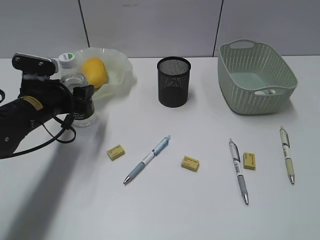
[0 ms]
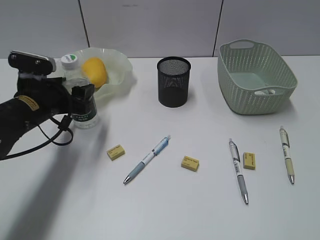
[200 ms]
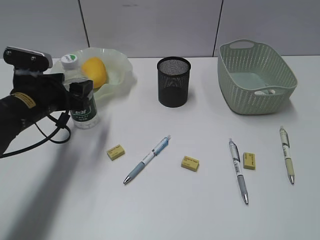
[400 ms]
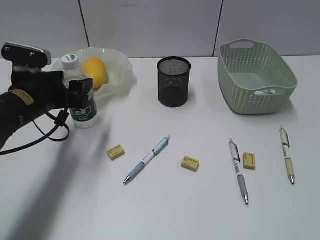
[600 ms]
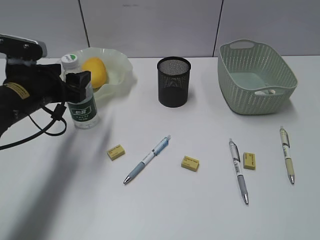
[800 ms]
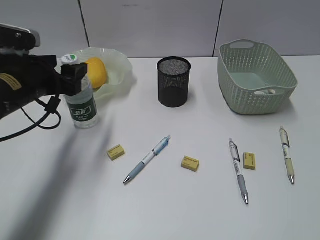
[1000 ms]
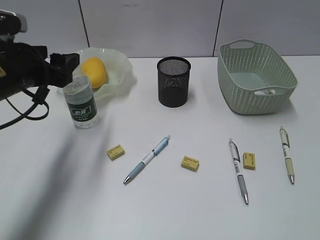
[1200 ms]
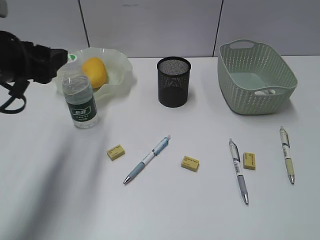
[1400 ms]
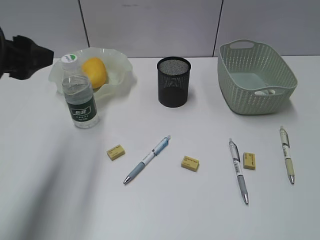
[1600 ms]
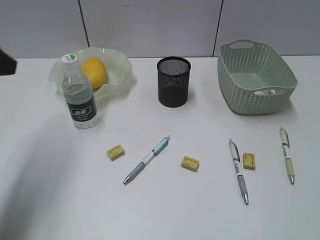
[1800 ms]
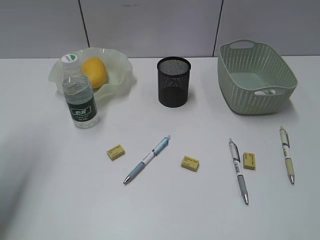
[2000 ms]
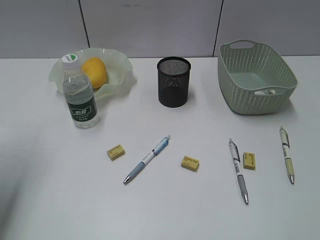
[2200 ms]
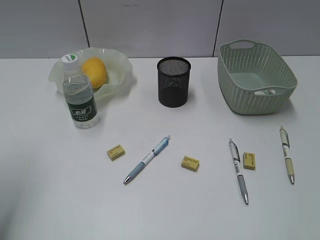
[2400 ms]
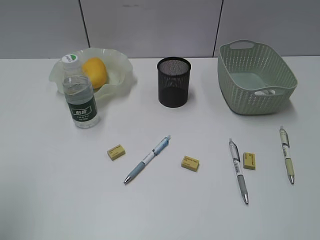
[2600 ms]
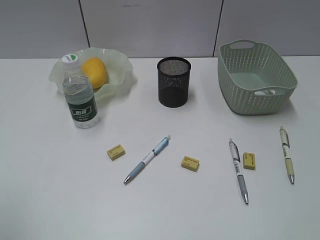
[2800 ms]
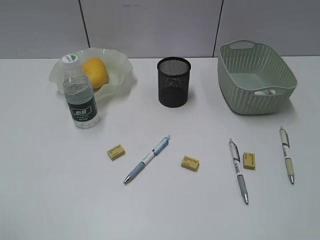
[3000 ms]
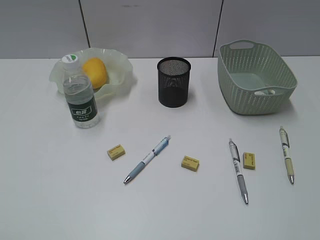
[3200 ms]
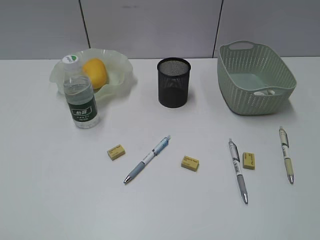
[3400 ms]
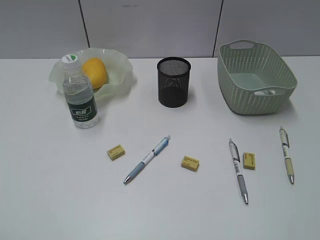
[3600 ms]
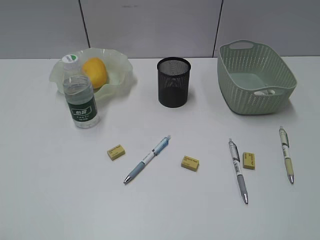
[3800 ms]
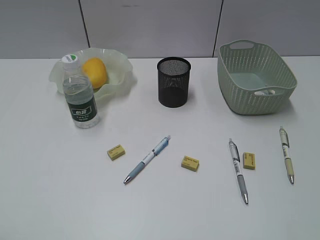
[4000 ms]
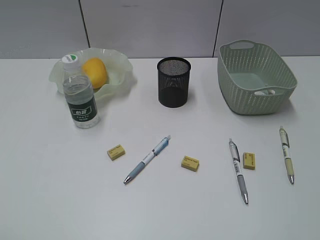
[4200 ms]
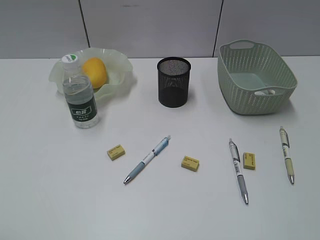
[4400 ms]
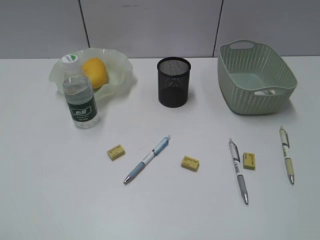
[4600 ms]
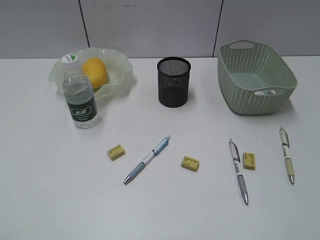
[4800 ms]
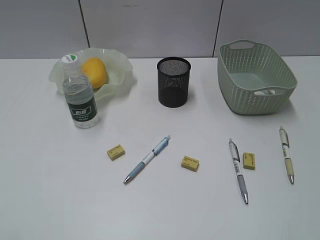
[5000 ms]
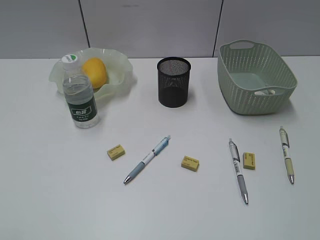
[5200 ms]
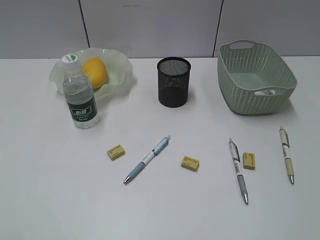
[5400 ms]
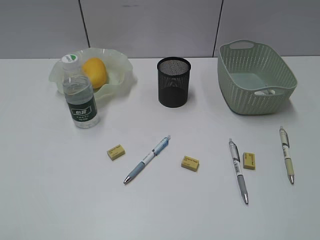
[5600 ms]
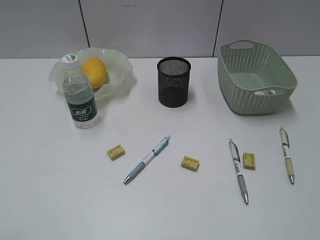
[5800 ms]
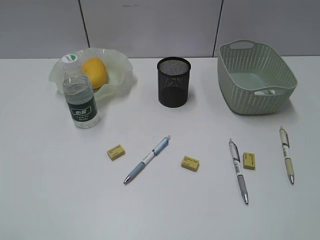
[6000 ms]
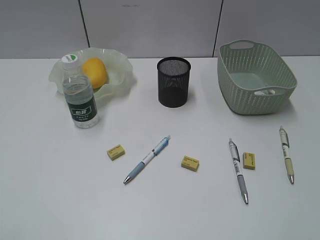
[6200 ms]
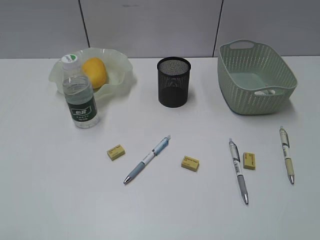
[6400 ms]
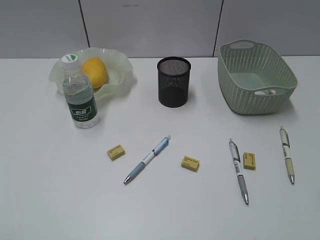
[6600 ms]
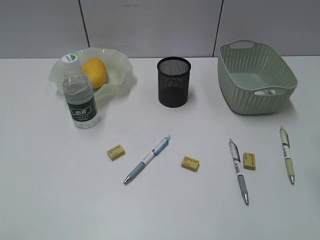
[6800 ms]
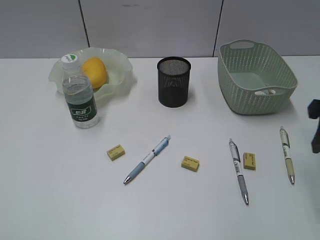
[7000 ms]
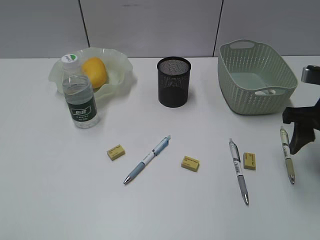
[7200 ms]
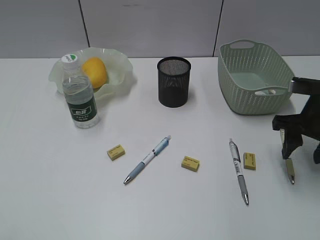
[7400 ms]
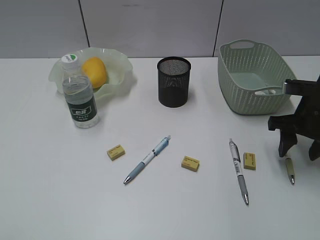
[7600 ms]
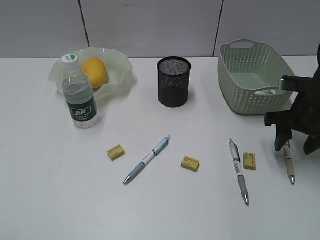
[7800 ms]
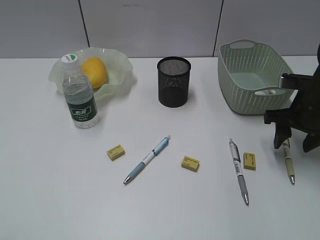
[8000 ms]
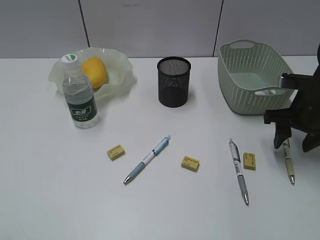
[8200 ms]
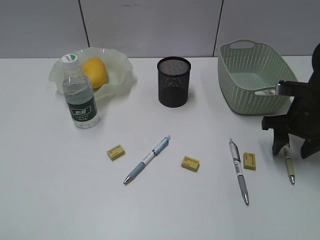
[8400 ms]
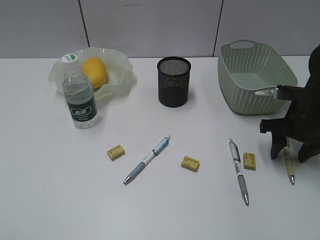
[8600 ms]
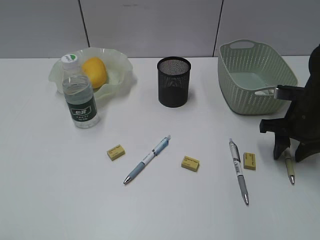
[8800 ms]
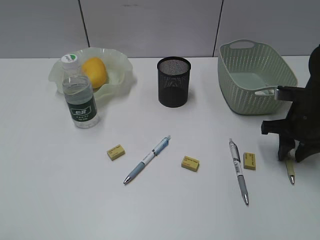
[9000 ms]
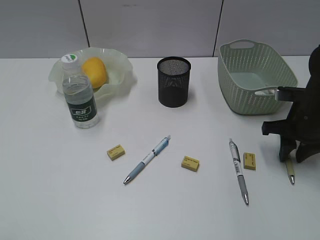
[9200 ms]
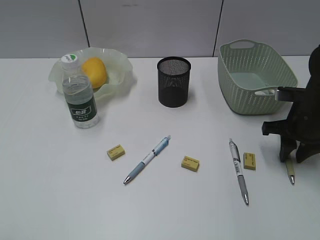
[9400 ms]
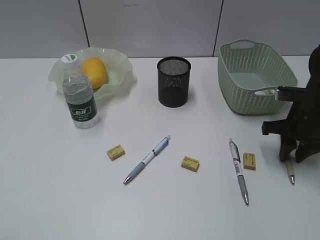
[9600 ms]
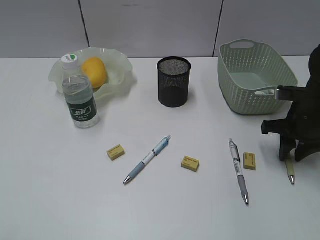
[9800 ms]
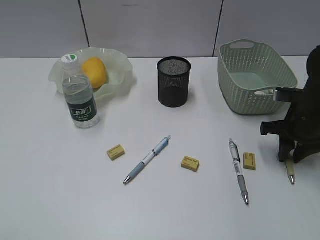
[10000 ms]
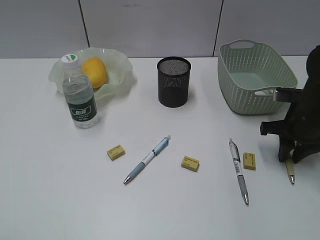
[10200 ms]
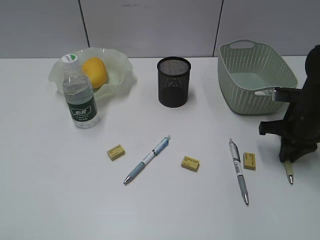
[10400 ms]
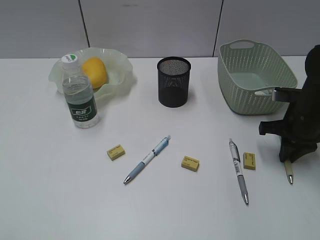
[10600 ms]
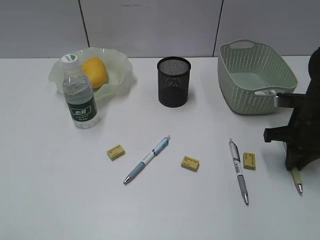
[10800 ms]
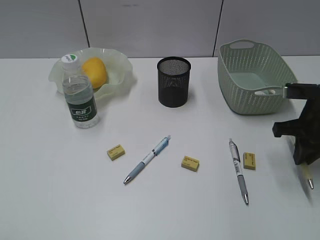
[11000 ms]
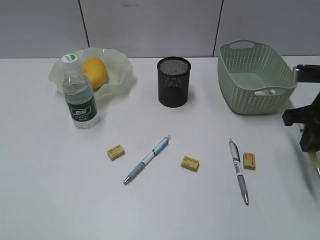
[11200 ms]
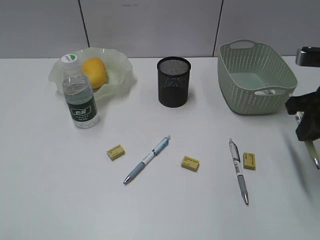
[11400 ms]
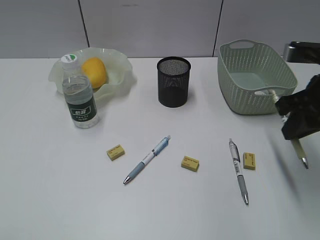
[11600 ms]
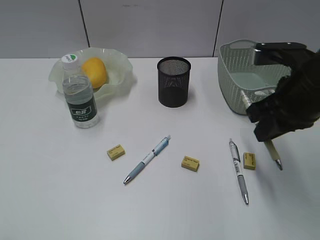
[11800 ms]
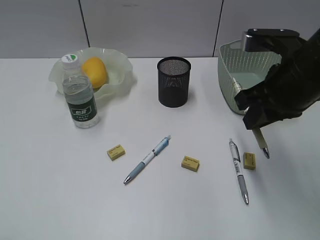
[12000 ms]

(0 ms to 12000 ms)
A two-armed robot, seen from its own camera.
Step, 1400 ms - 10600 ms: Grasp the yellow pen with right gripper.
0 ms - 1600 ms: The left gripper shifts about 20 cm upward and backward.
1600 ms - 3000 ms: The left gripper moves backward, about 20 cm.
4400 ms - 6000 ms: Neither gripper changes place.
6000 ms - 7600 ms: The right gripper is displaced forward and downward by about 35 cm.
7600 ms - 9000 ms: The right gripper closes up.
9000 ms - 10400 ms: The right gripper closes.
10400 ms - 12000 ms: The right gripper goes roughly 15 cm upward, to the left and backward.

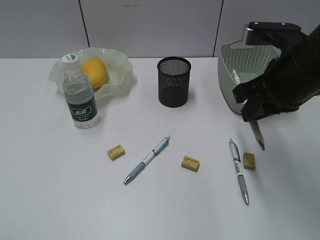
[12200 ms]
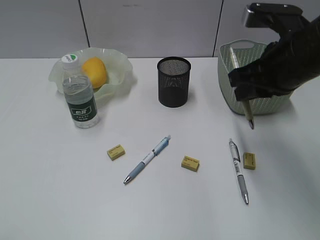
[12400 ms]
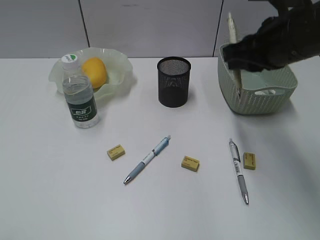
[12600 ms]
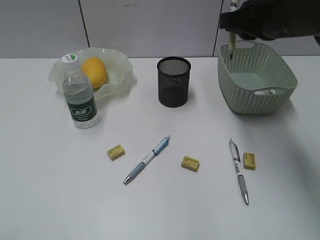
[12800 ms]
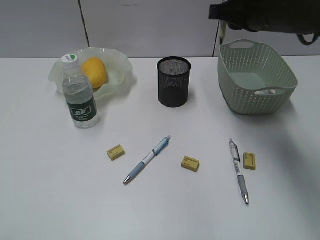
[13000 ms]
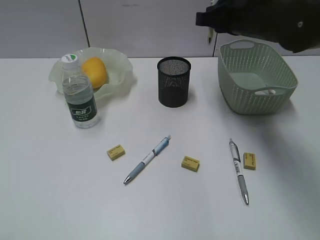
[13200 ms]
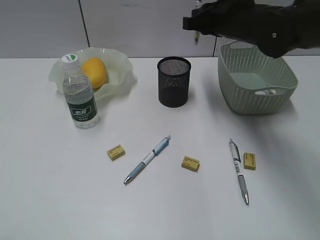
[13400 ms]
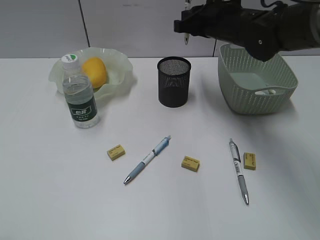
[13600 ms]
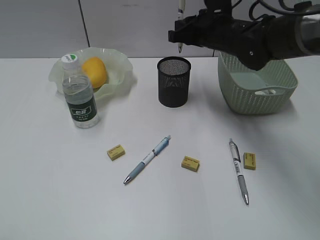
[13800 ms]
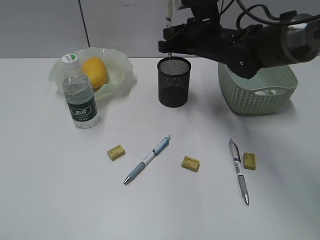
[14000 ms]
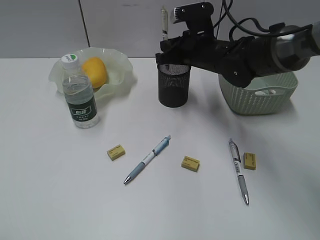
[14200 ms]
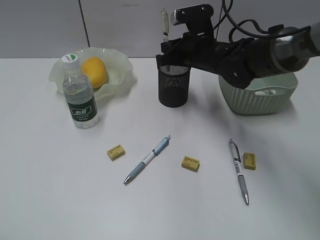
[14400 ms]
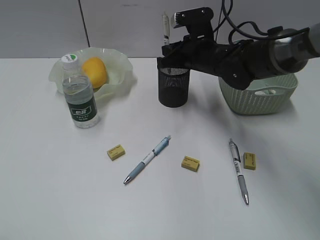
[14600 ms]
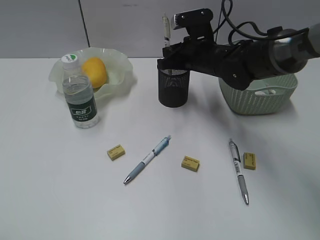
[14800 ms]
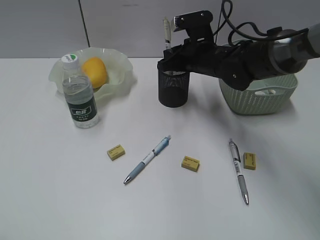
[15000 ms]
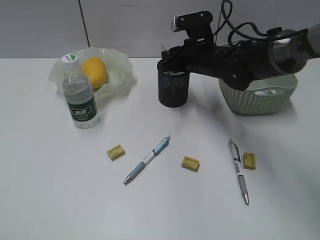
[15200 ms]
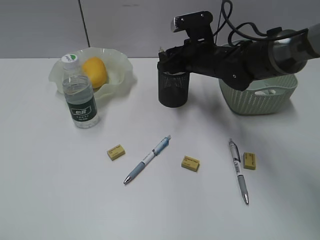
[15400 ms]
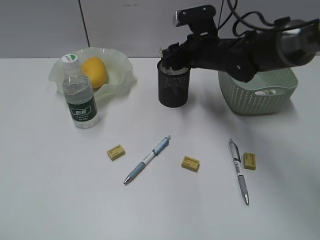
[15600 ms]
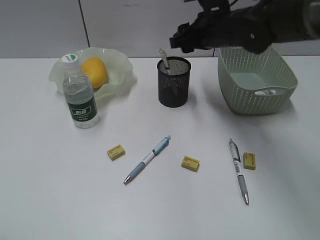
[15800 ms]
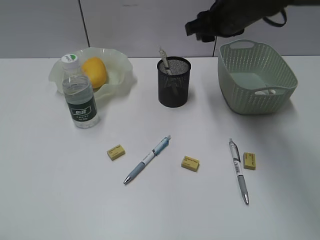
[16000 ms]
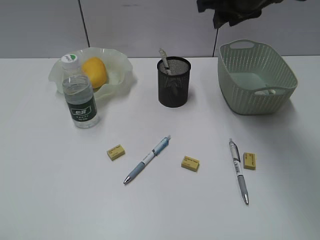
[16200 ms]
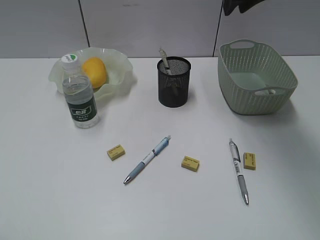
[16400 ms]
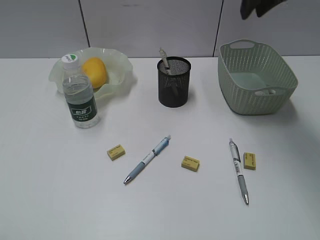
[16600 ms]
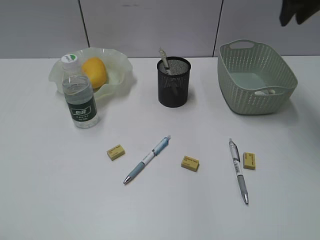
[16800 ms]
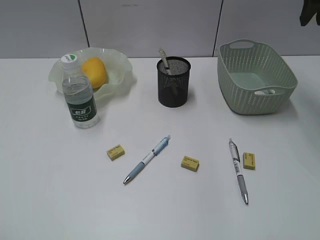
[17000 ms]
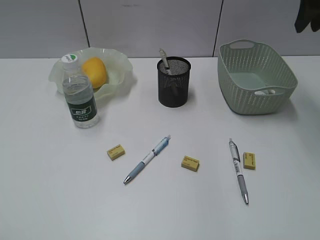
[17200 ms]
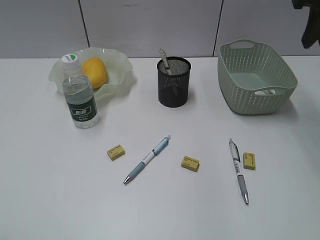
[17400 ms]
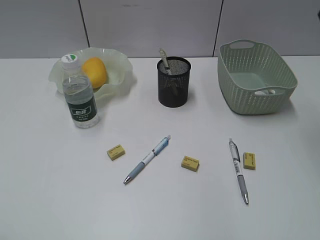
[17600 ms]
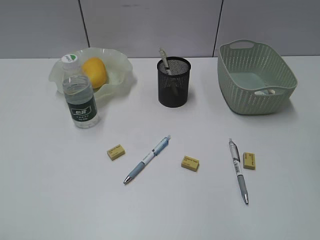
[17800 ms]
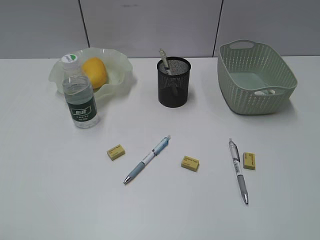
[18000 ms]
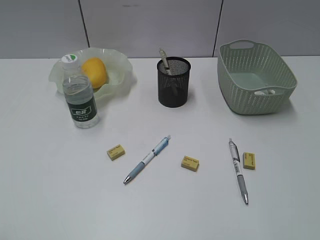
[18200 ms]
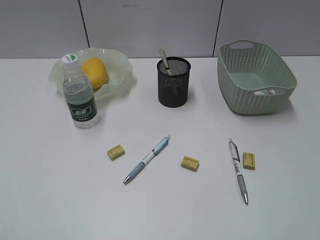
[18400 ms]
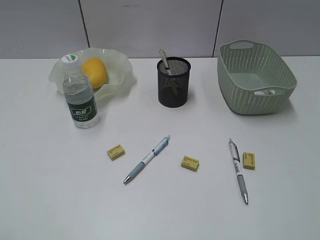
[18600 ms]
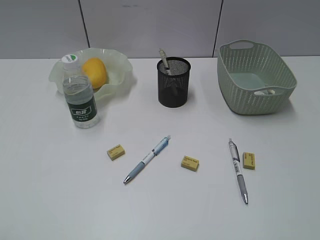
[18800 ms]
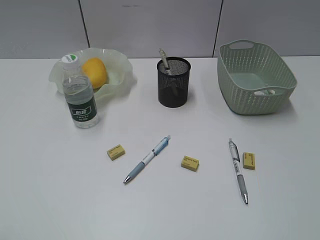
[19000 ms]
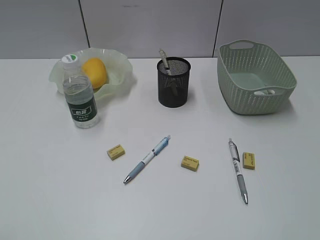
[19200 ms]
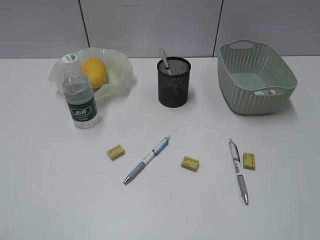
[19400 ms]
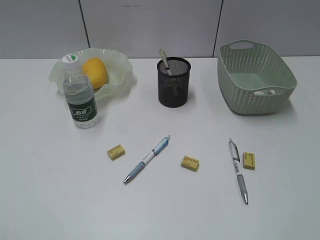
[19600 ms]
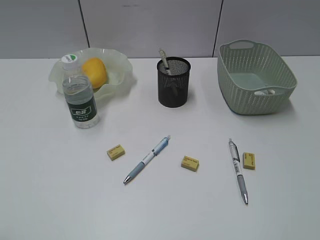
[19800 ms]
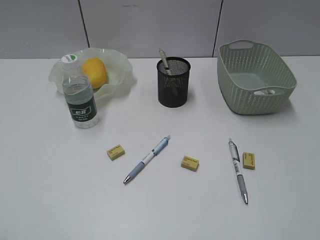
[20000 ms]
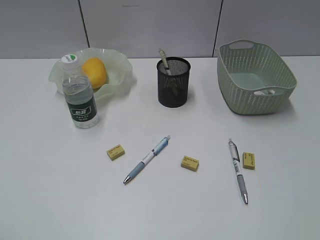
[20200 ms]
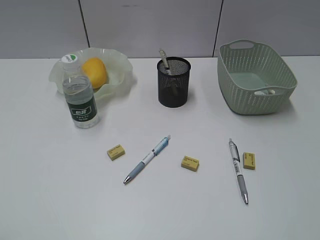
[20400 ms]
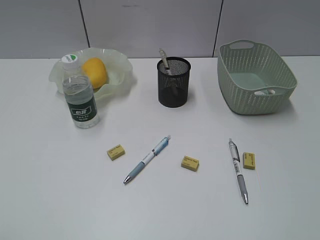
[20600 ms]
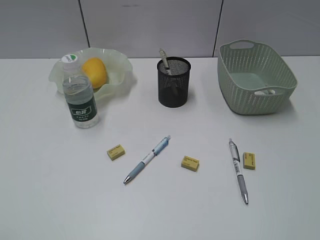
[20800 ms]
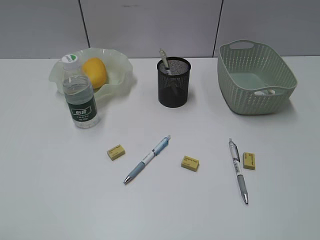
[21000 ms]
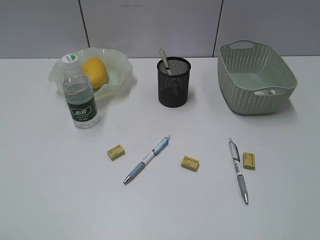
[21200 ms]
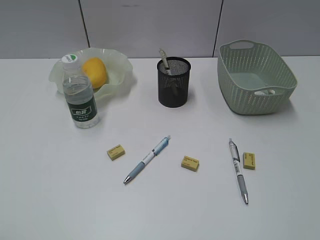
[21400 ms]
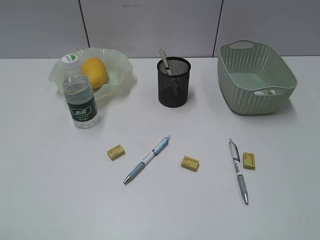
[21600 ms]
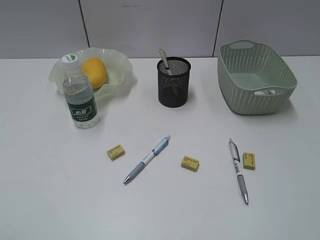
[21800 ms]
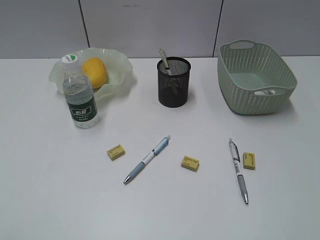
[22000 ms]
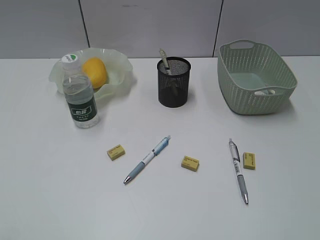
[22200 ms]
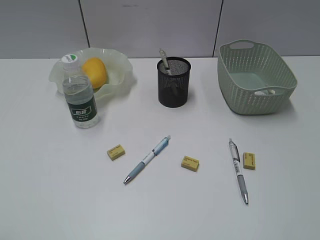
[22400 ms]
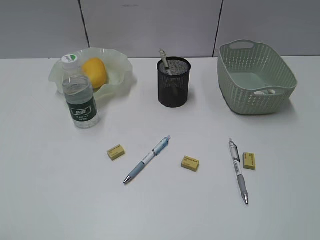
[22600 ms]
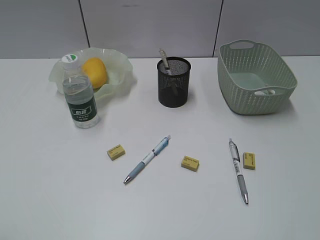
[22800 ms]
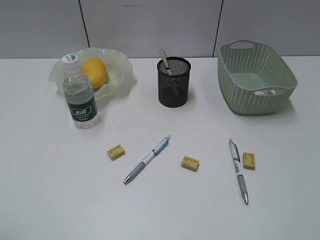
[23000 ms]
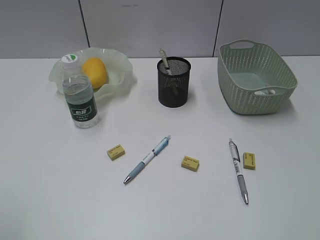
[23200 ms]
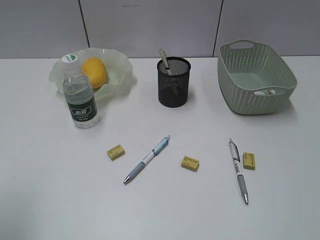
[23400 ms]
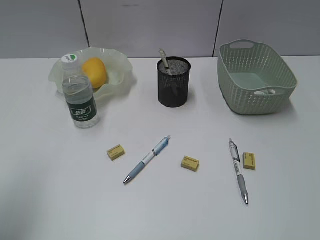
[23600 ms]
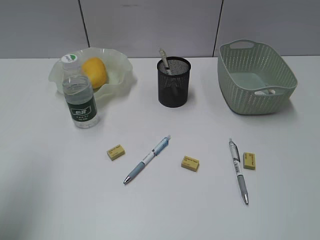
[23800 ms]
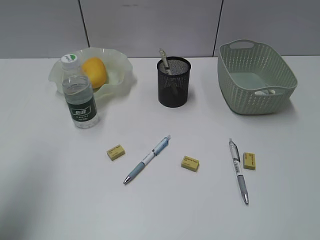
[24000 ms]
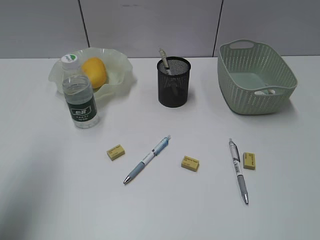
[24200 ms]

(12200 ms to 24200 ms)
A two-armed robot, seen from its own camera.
Step, 12200 ms - 15400 ms: Place the yellow pen in pen holder with right gripper.
12200 ms - 13800 ms: The right gripper goes approximately 20 cm forward and to the left.
13800 ms - 15200 ms: The right gripper moves downward, about 5 cm.
15200 ms - 16600 ms: The right gripper is displaced upward by roughly 20 cm, and opens and closes again.
16600 ms - 18200 ms: The right gripper shifts some 30 cm backward and to the right, and opens up.
22600 ms - 24200 ms: The left gripper heads forward, covering about 20 cm.
